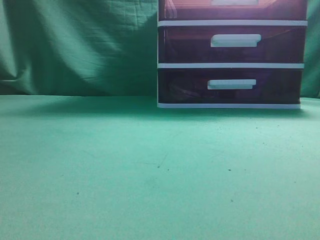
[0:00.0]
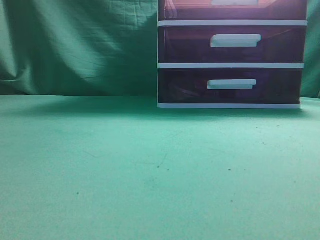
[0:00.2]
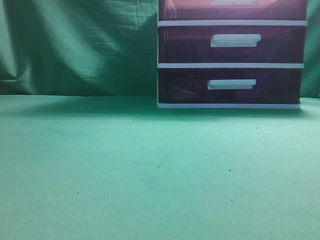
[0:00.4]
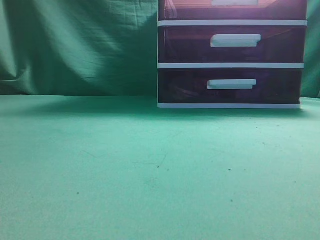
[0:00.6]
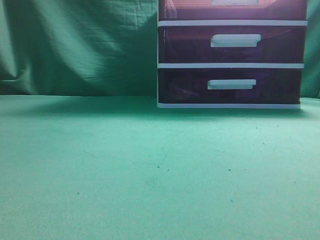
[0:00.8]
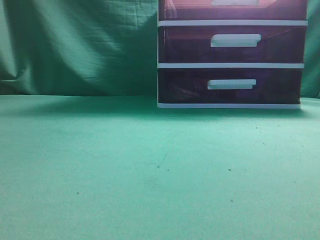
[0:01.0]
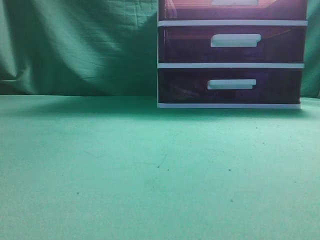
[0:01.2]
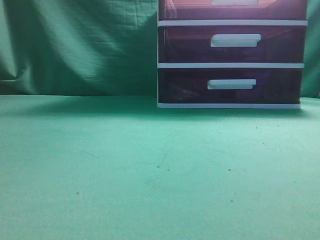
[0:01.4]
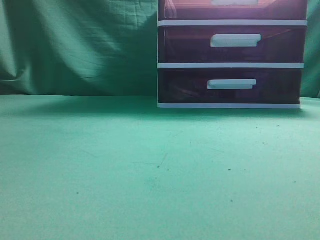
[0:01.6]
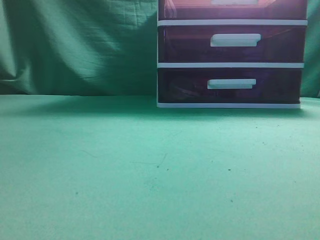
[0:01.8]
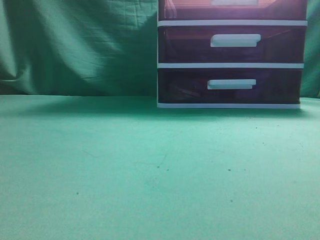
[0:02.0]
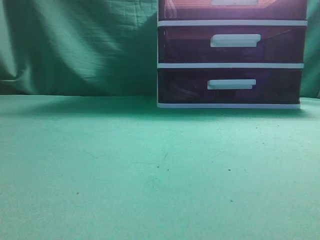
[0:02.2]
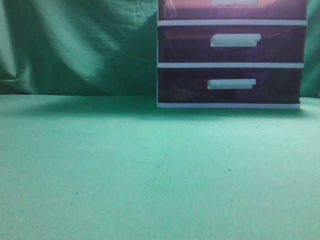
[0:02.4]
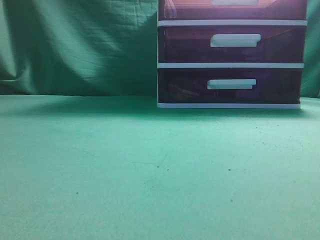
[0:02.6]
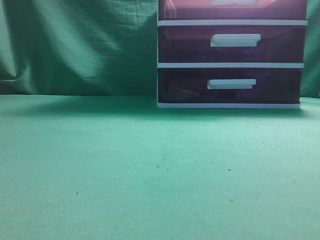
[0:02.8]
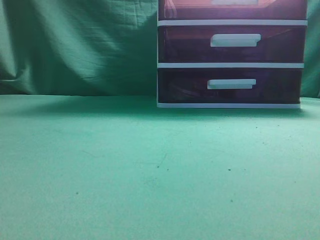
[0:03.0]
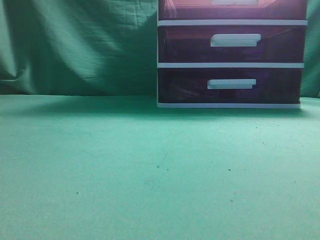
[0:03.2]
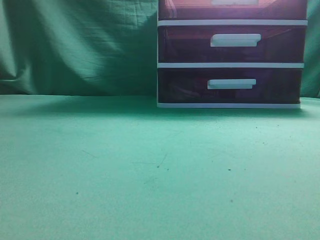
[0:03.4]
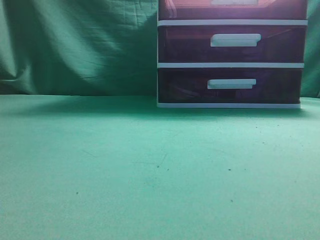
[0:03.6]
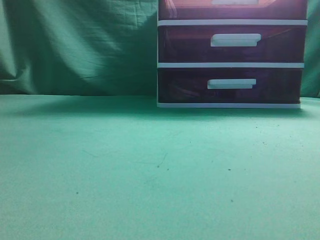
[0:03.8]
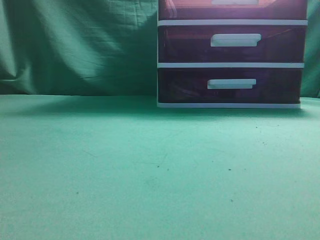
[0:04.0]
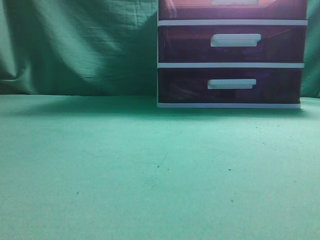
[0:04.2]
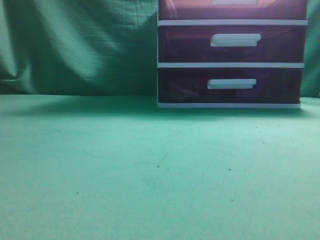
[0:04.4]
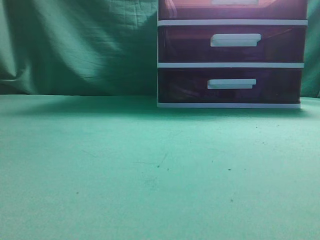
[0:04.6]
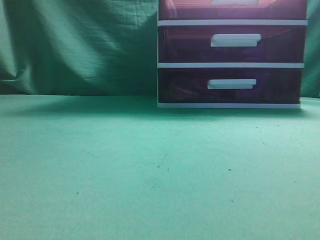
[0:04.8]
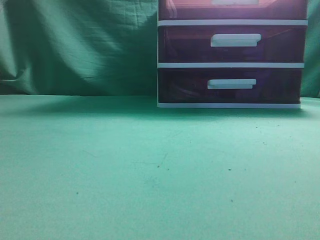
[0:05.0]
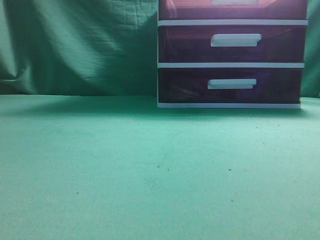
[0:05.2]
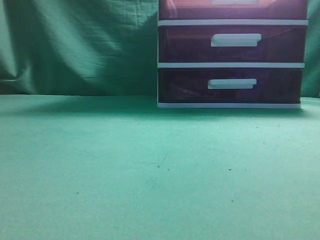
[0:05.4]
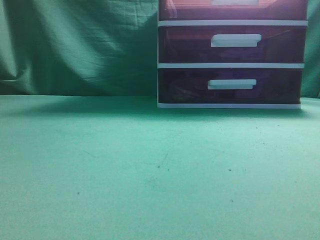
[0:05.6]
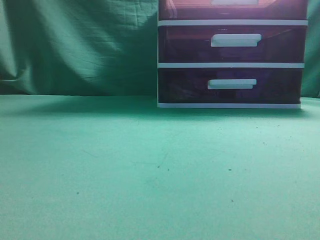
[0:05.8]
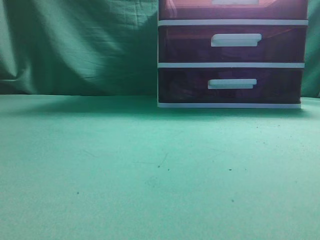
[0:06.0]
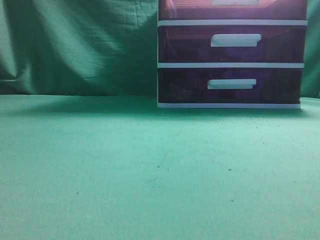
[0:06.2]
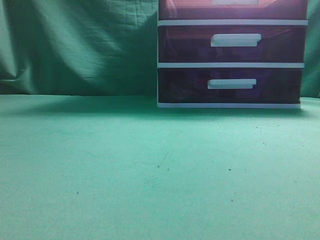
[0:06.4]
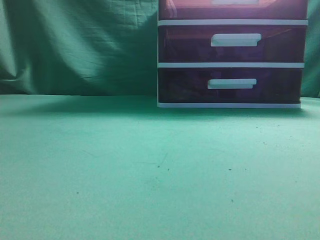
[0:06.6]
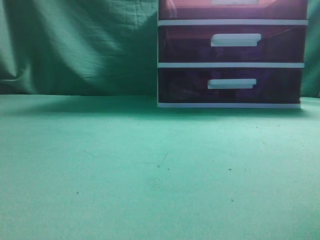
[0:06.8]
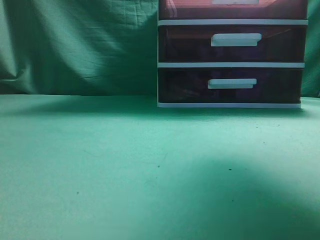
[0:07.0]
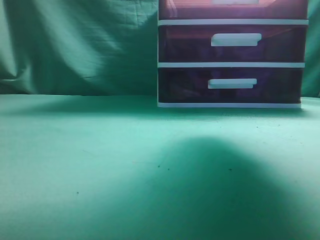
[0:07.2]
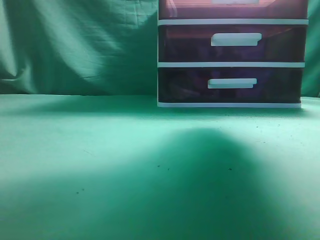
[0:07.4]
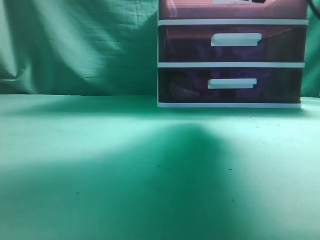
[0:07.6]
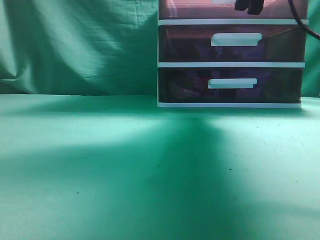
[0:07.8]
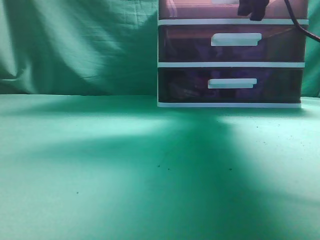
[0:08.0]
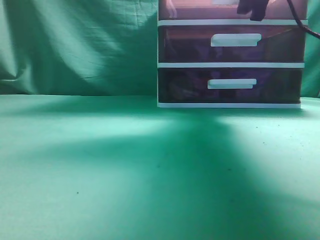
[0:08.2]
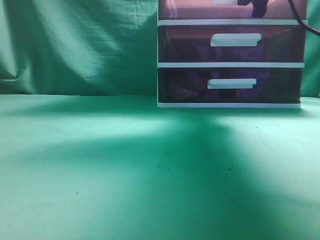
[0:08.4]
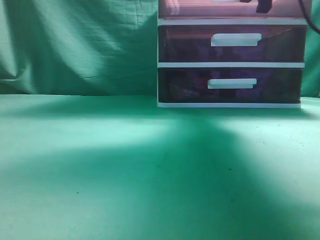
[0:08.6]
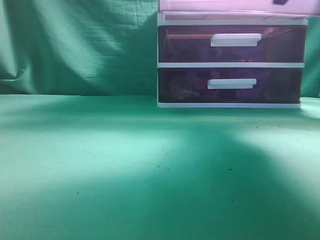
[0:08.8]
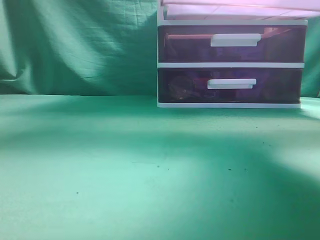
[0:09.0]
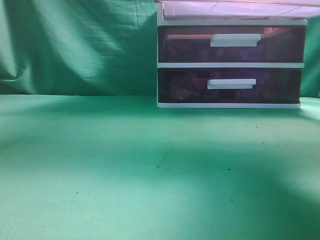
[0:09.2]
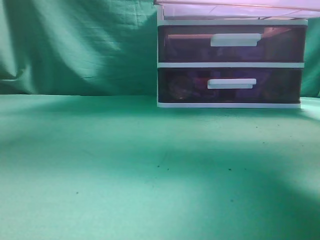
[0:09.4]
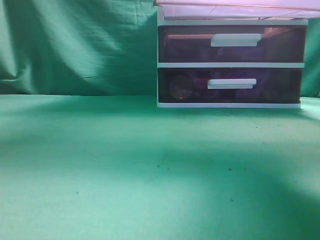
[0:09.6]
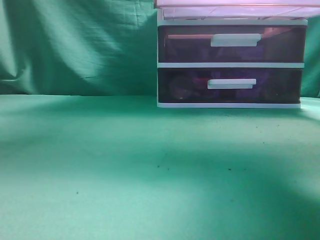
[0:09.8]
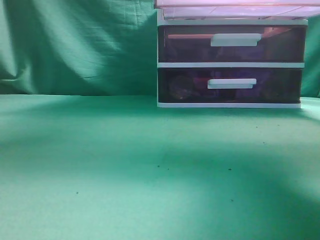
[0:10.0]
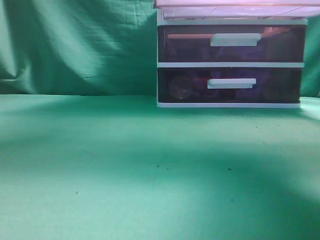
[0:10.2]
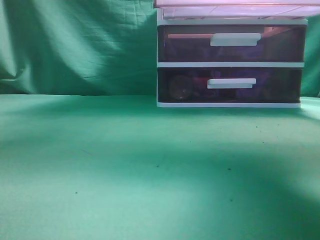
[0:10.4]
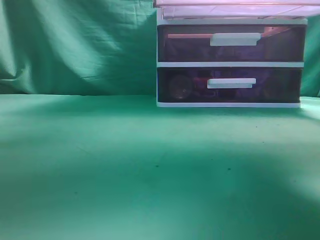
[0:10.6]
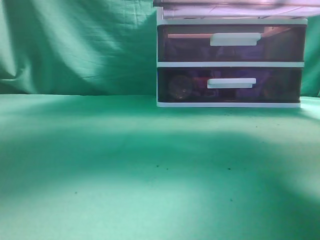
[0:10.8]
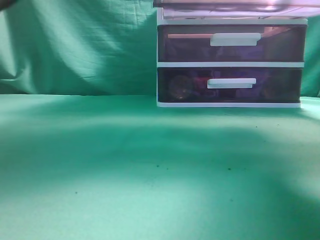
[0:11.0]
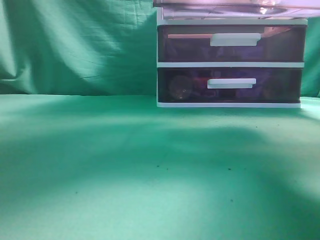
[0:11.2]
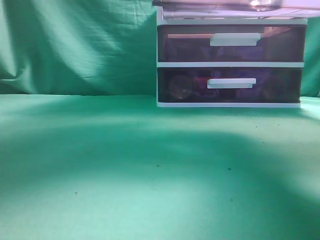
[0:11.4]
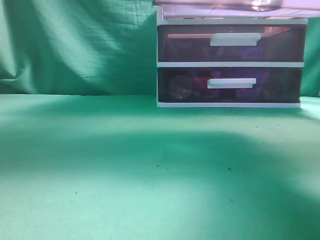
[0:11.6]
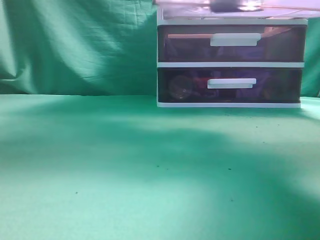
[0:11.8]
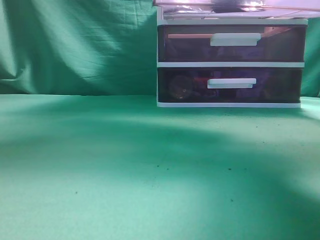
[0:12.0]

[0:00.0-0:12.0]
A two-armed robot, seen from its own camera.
Task of the whole recording: place the water bottle into the drawer.
Step, 0:00.0 to 0:09.2: Open the drawer.
Step, 0:09.4 to 0:11.8: Place the water bottle inside the drawer.
0:06.0 to 0:07.6: The right gripper shifts about 30 cm forward, and opens.
0:07.6 to 0:09.0: The right gripper closes.
0:09.0 to 0:10.4: The left gripper shifts some 20 cm to the right, forward and upward, while the right gripper heads backward, covering about 10 cm.
0:10.4 to 0:12.0: The left gripper is displaced forward and to the right by roughly 20 cm, and opens.

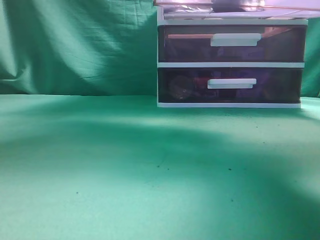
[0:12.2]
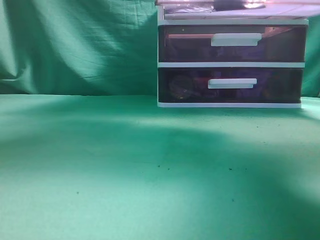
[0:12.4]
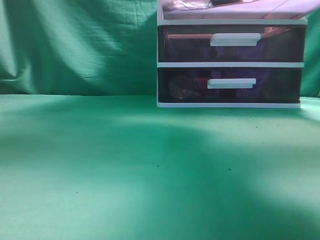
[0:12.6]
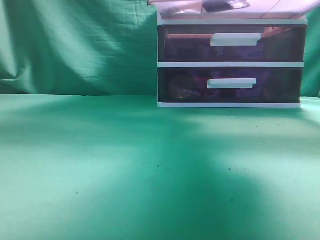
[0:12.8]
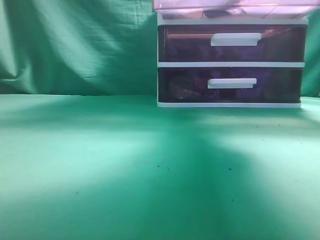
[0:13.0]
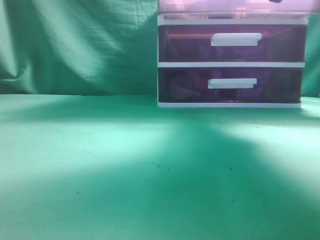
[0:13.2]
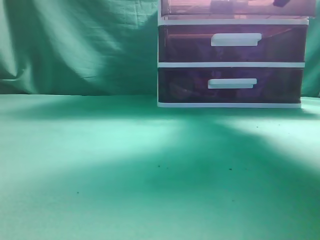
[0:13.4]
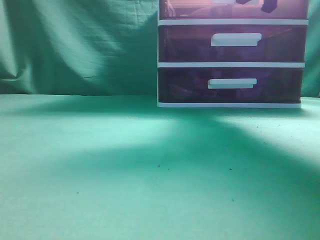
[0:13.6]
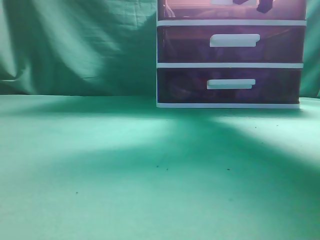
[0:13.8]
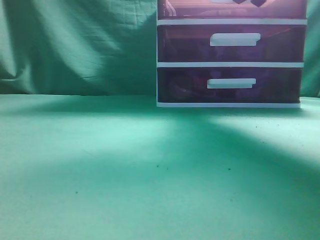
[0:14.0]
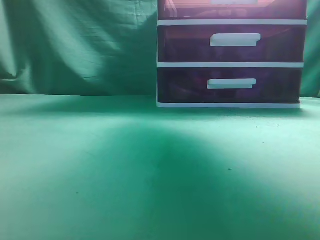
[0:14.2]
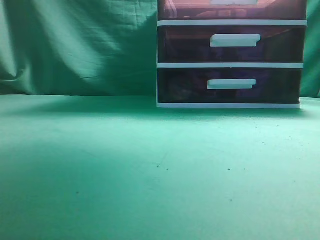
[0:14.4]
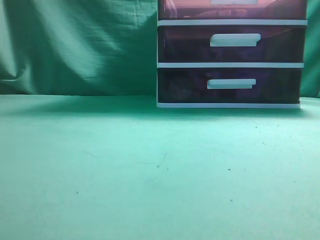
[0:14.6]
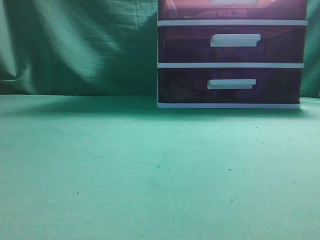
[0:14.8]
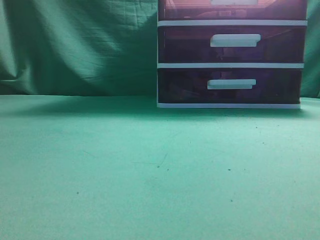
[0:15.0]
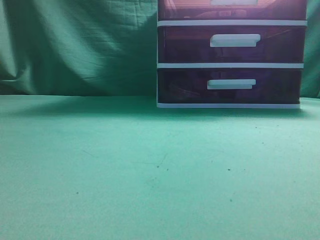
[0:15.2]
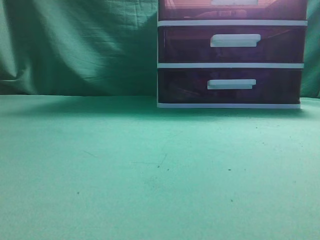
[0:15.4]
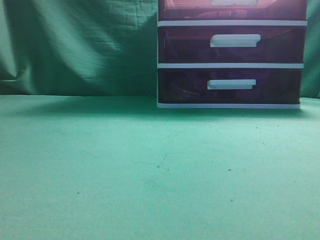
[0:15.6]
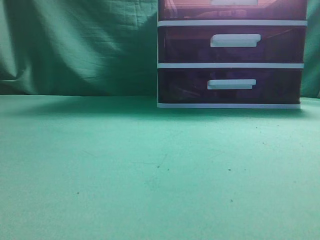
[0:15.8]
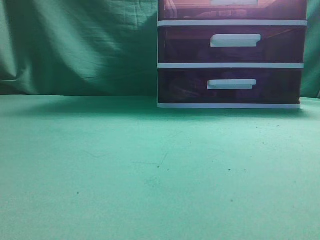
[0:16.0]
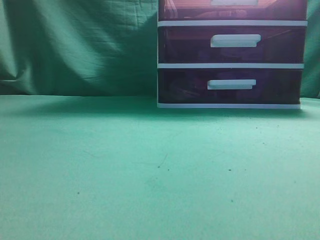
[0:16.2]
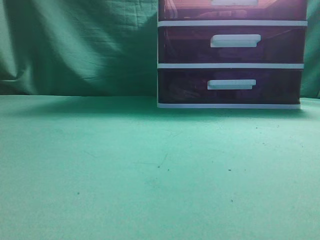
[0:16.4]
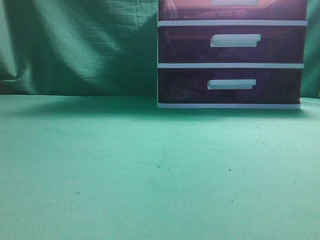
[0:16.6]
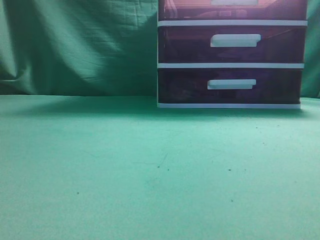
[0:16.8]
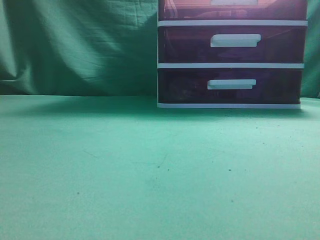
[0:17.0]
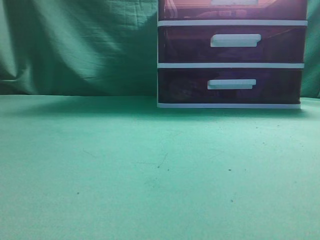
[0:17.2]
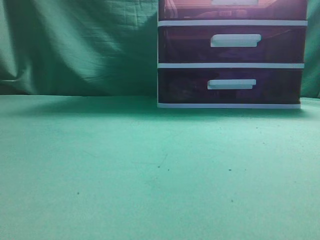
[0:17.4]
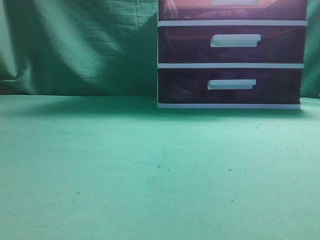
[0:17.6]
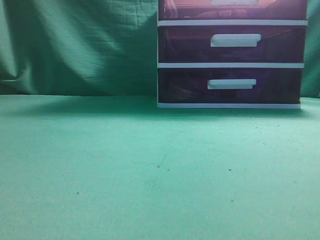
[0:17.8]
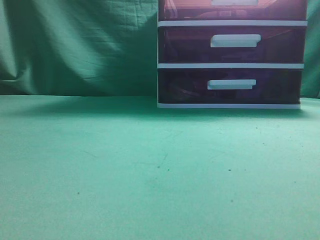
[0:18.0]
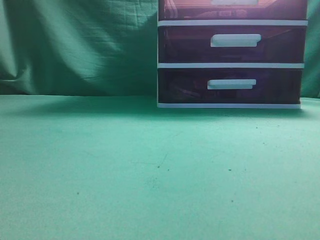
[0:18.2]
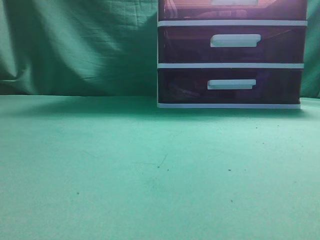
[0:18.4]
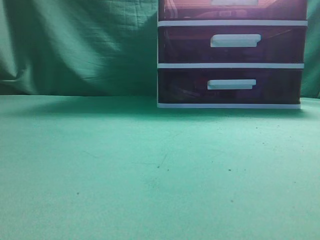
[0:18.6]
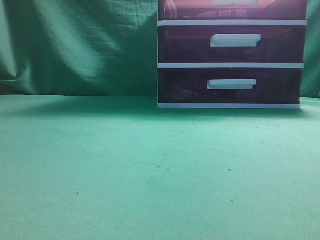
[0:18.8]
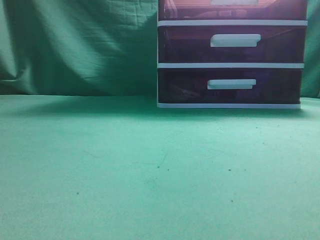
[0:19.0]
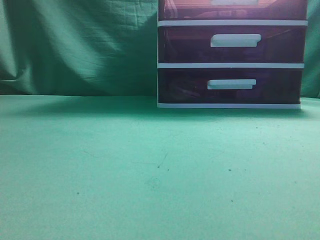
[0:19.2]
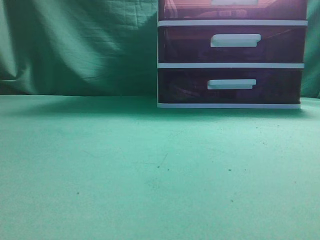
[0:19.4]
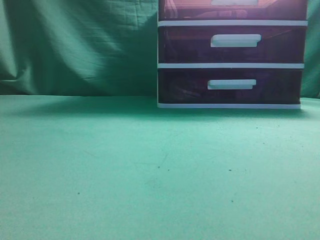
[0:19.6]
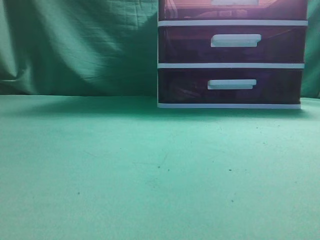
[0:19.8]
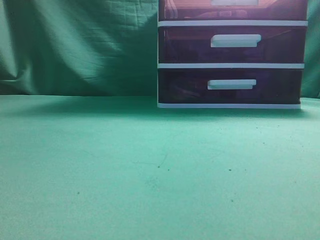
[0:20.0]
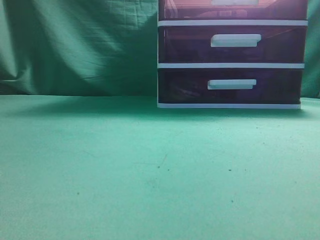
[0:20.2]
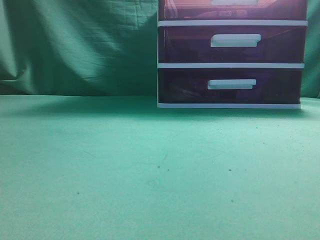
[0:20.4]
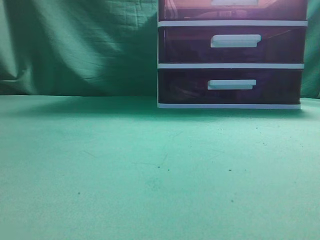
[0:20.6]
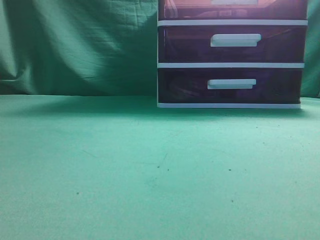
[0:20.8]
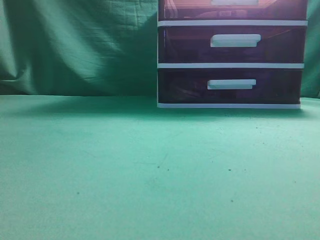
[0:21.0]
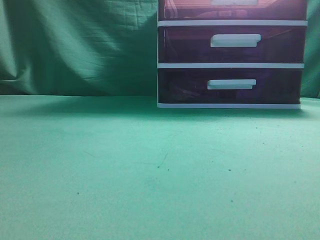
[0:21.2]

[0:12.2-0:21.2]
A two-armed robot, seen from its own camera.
Task of the whole recording: place the water bottle into the drawer.
Step, 0:12.2 to 0:14.2: Close the drawer.
0:12.2 to 0:13.8: The left gripper moves backward and to the left, approximately 35 cm, and closes up; the right gripper shifts about 20 cm forward.
0:13.8 to 0:15.2: The right gripper heads backward and upward, covering approximately 20 cm, and opens, then closes once more; the left gripper goes about 5 cm backward.
